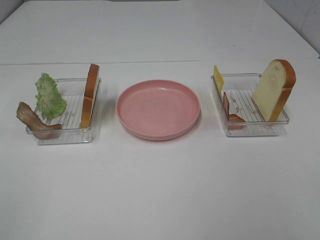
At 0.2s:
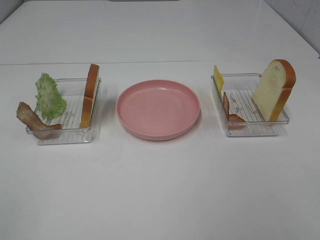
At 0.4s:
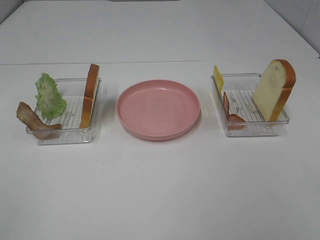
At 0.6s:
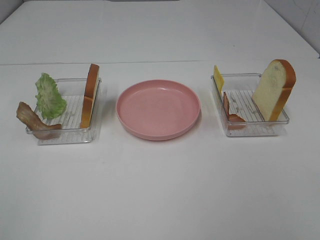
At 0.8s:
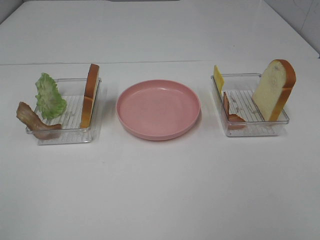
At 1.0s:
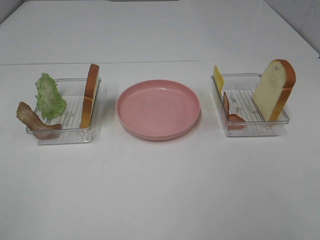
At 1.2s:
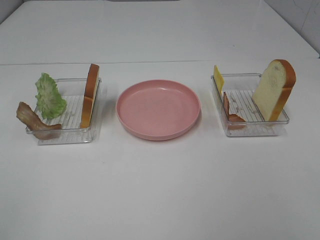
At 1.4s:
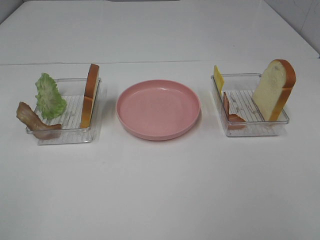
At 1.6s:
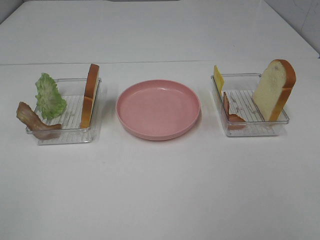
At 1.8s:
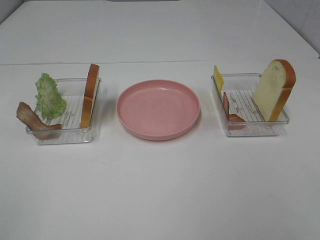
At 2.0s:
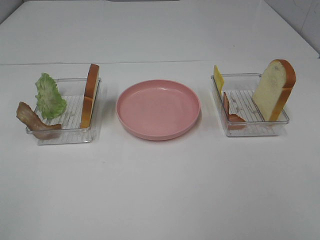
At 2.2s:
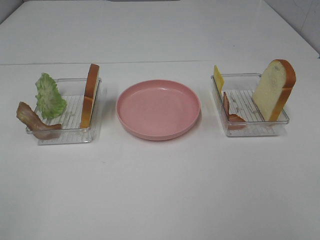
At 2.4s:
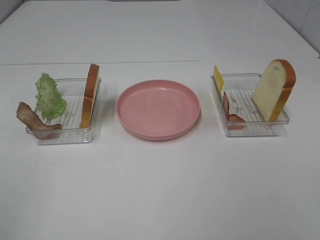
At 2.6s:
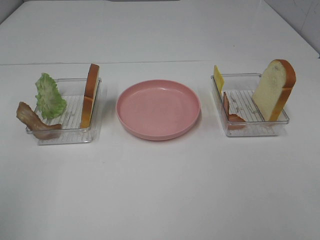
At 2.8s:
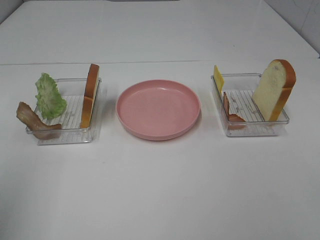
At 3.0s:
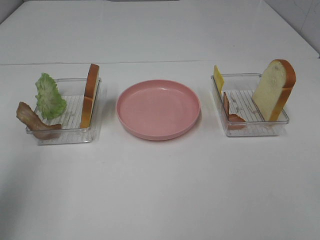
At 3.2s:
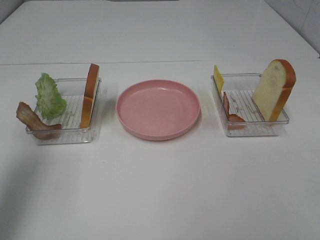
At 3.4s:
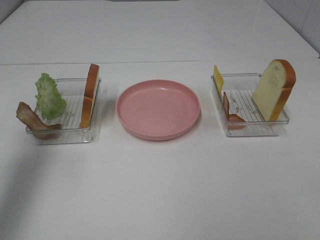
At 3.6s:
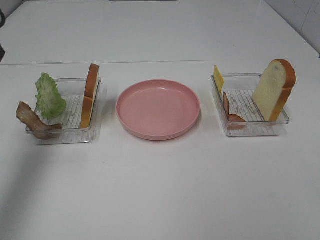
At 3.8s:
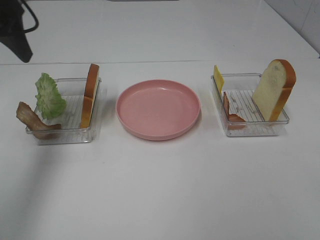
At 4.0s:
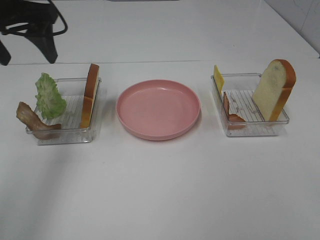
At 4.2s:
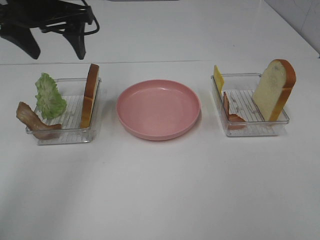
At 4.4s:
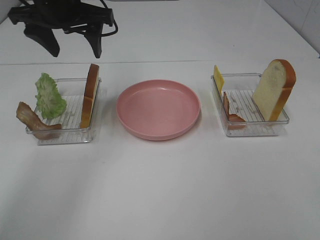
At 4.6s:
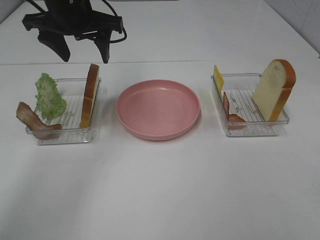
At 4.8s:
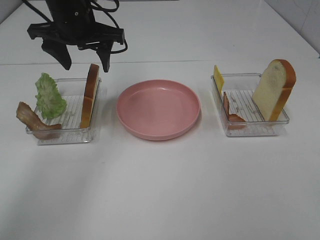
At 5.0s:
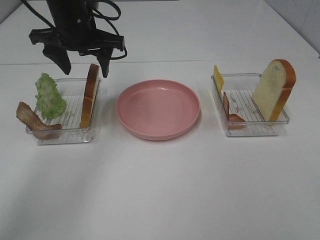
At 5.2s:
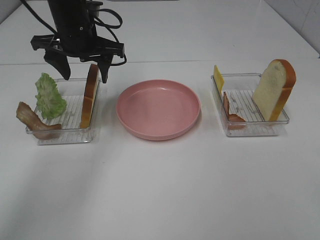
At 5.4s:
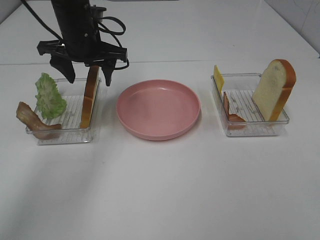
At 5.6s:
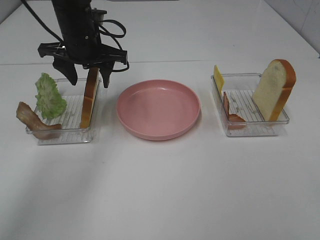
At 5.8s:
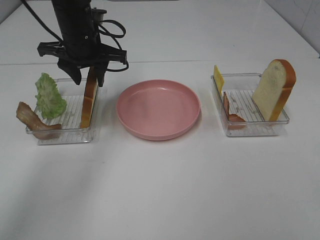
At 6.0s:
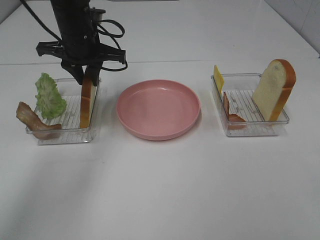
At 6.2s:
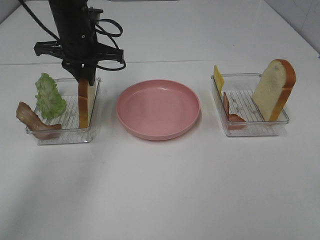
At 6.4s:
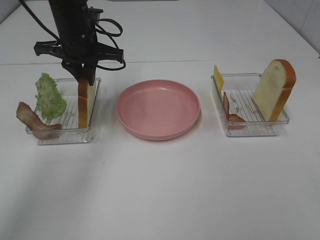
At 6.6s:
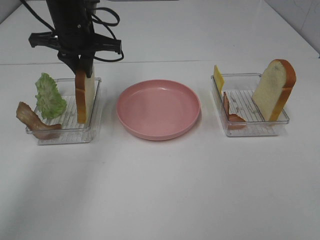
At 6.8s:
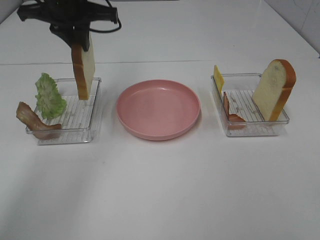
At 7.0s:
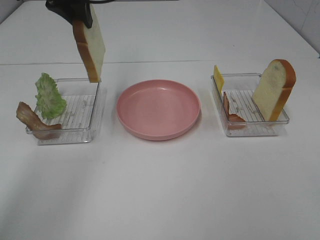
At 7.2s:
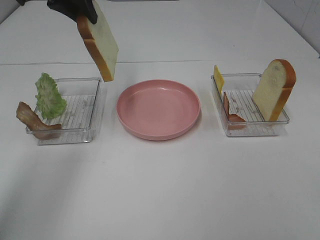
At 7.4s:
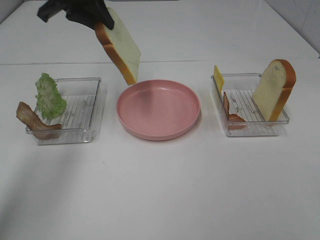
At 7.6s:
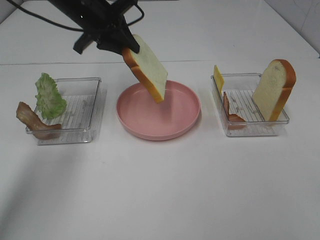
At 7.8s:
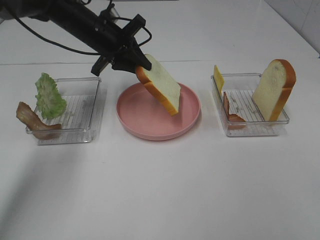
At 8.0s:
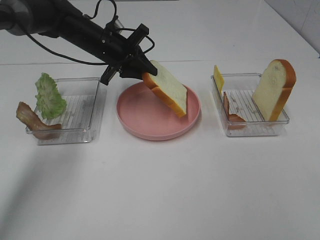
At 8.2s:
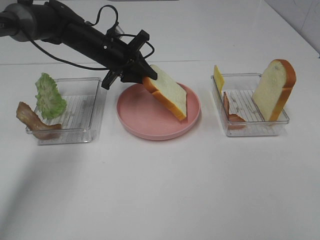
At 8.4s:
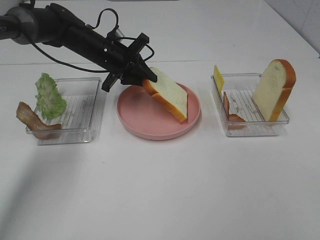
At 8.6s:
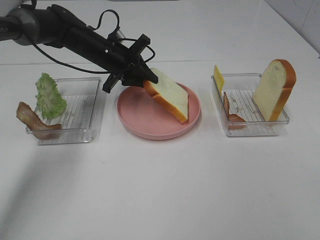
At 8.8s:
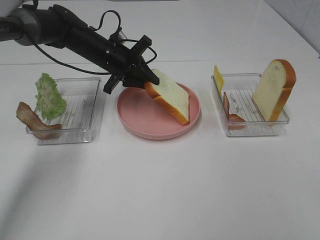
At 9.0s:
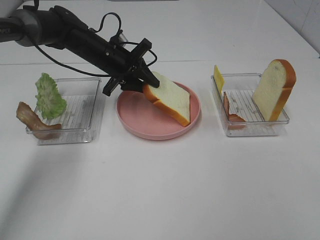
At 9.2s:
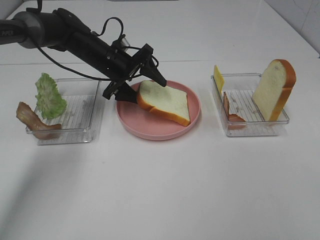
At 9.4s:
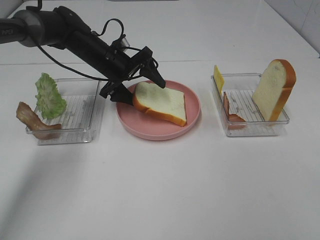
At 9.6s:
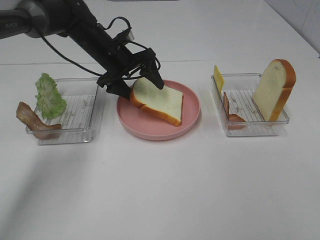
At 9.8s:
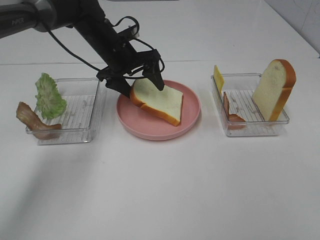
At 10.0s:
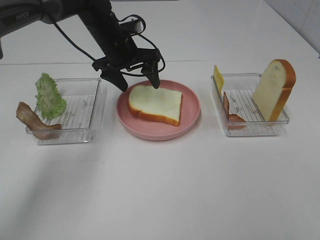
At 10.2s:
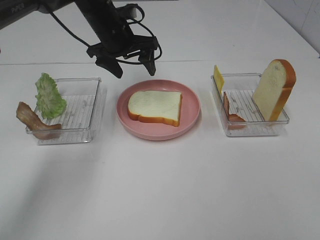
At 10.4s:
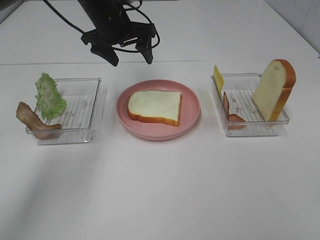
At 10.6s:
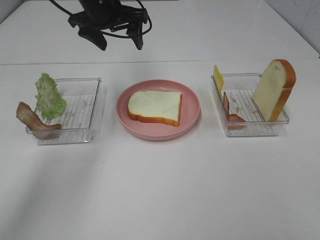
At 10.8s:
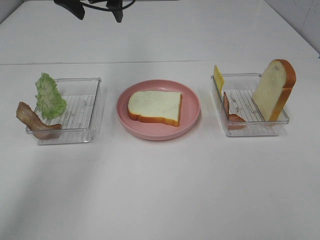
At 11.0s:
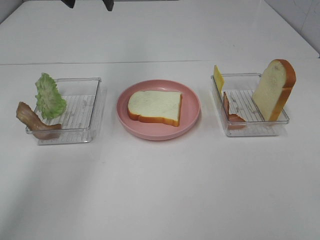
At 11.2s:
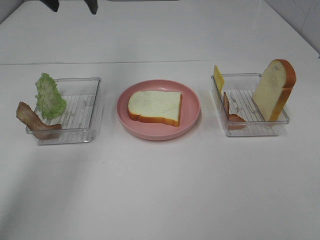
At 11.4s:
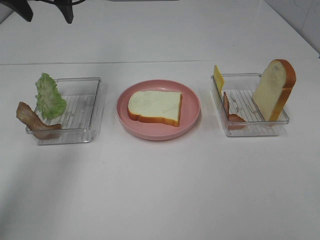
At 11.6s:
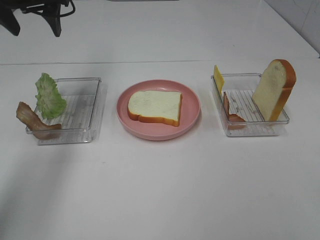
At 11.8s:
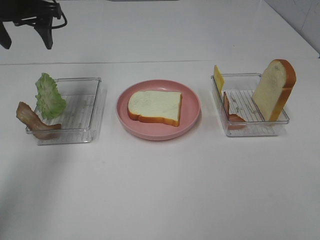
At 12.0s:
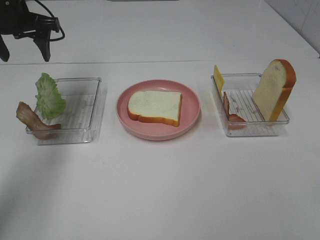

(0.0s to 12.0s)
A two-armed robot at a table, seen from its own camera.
Task of the whole recording: Make sandwiches.
Step, 0.0s - 6.4s: Left hand:grab the bread slice.
Step, 6.6s - 10.4s: Left hand:place the bread slice on the plate.
0.0s - 1.6s: Both grippers stay about where they are.
1.6s - 3.0s: The left gripper is displaced forward by approximately 15 cm.
3.0s - 4.4s: The left gripper travels forward and to the right by about 30 cm.
4.4s - 6.0s: The left gripper shifts some 10 cm downward, and closes up.
6.0s - 7.6s: The left gripper moves about 10 cm upward and comes back.
7.6s - 9.0s: The left gripper is displaced downward by approximately 10 cm.
9.0s - 10.4s: The left gripper travels upward by approximately 10 cm, and opens its fingers.
10.4s - 12.0s: The left gripper moves to the left, roughly 15 cm.

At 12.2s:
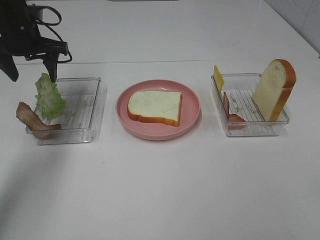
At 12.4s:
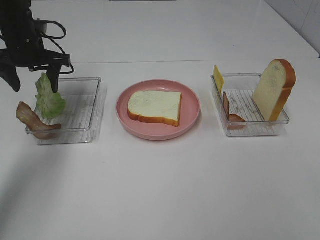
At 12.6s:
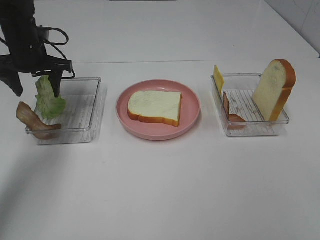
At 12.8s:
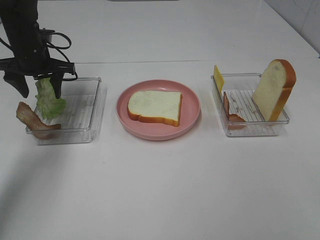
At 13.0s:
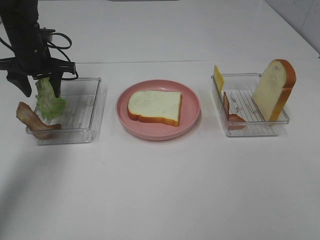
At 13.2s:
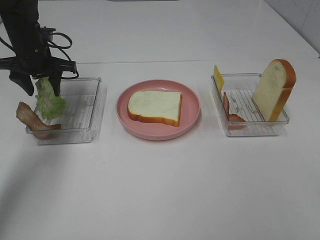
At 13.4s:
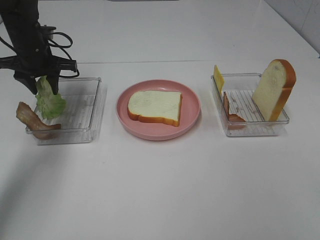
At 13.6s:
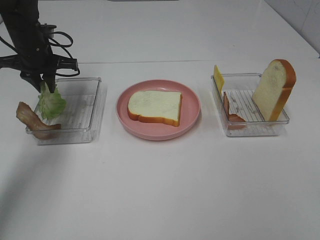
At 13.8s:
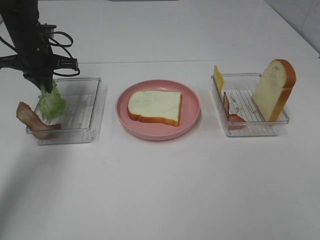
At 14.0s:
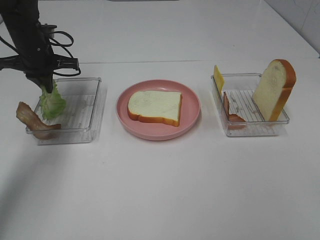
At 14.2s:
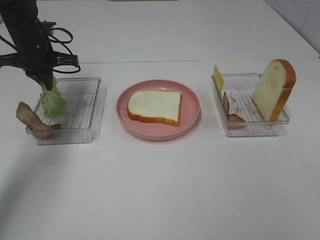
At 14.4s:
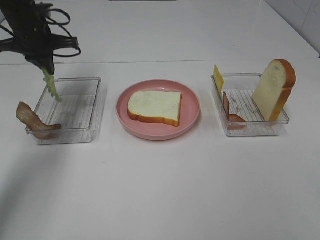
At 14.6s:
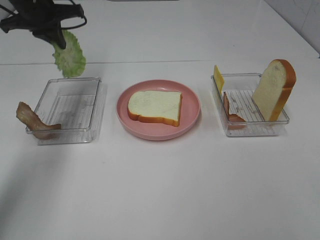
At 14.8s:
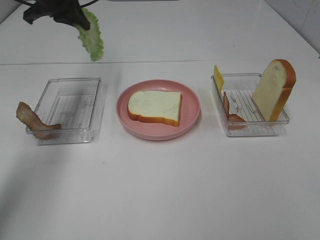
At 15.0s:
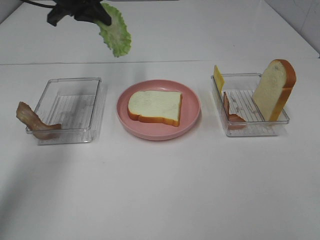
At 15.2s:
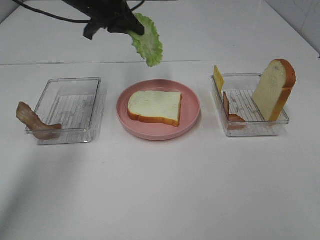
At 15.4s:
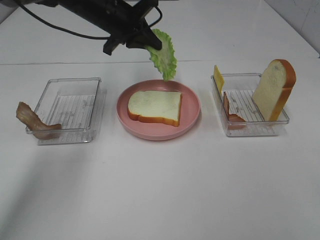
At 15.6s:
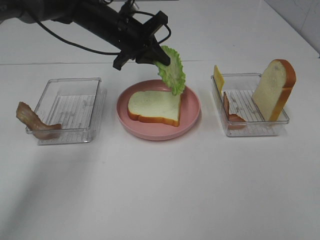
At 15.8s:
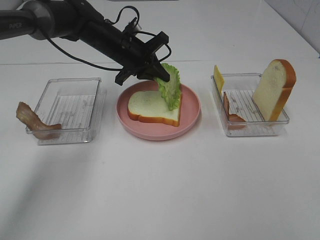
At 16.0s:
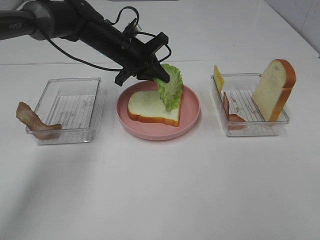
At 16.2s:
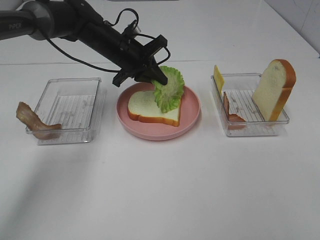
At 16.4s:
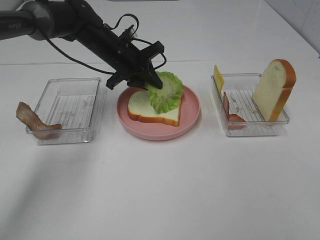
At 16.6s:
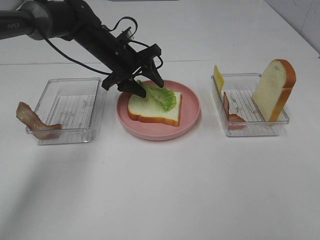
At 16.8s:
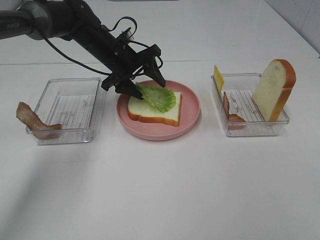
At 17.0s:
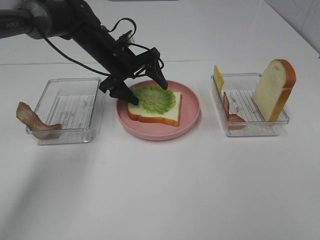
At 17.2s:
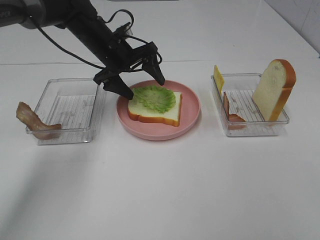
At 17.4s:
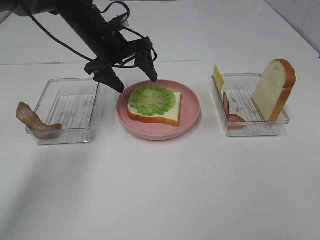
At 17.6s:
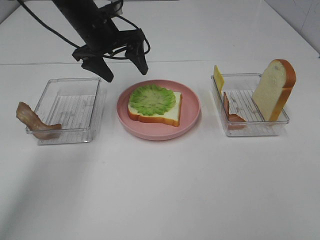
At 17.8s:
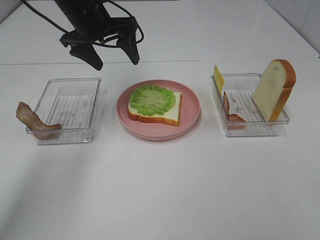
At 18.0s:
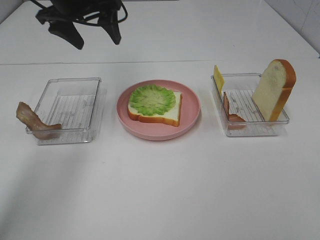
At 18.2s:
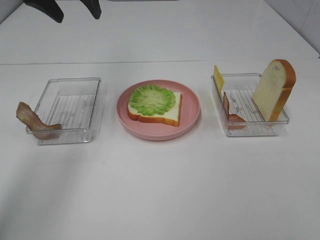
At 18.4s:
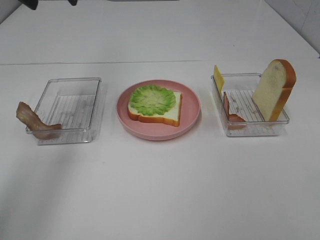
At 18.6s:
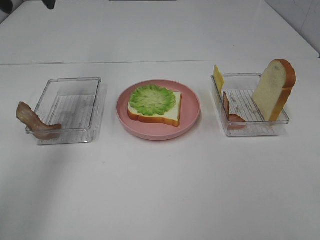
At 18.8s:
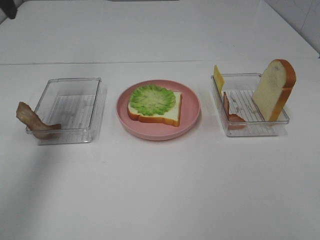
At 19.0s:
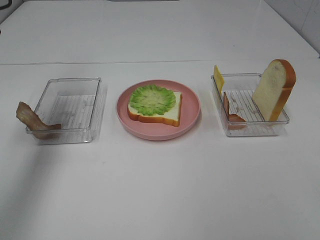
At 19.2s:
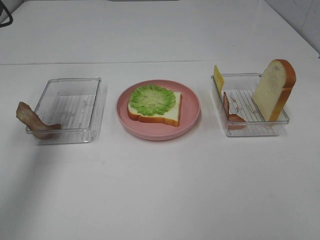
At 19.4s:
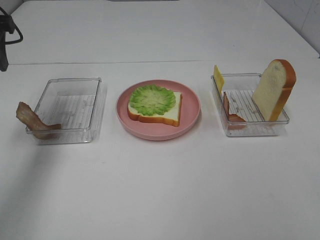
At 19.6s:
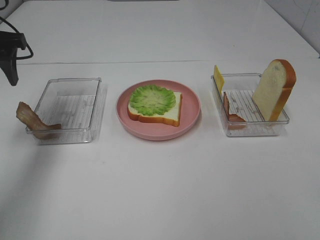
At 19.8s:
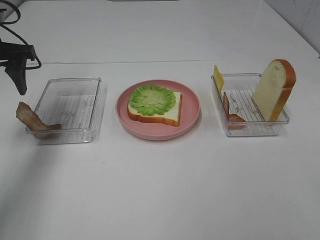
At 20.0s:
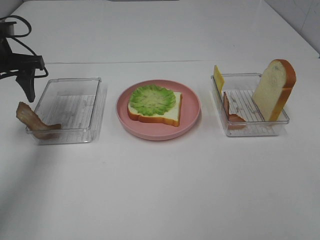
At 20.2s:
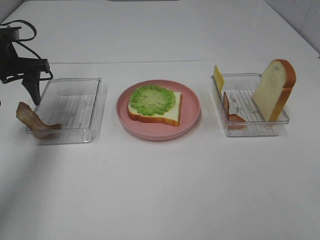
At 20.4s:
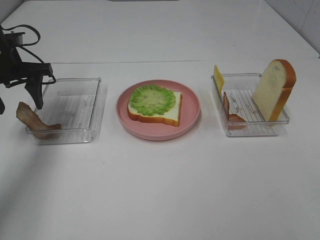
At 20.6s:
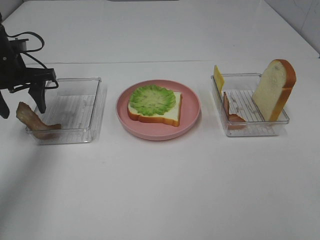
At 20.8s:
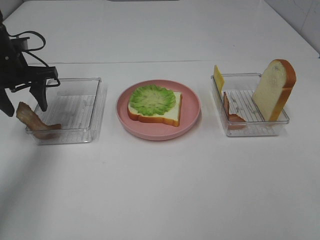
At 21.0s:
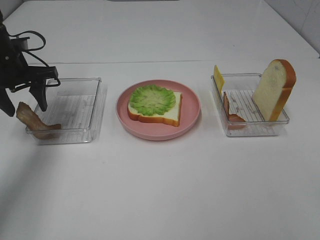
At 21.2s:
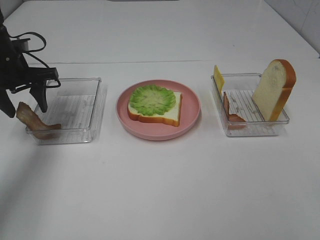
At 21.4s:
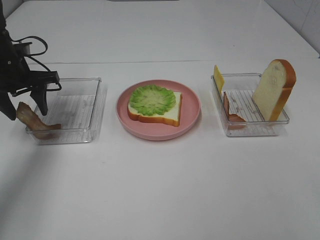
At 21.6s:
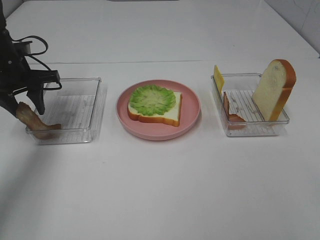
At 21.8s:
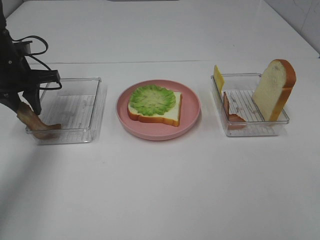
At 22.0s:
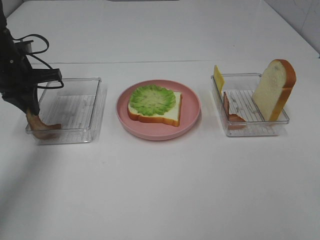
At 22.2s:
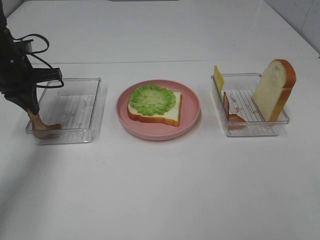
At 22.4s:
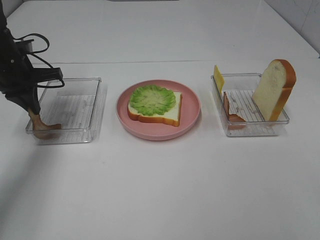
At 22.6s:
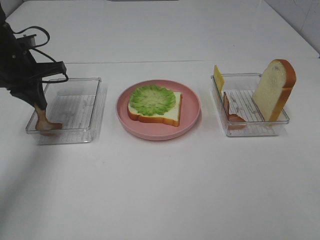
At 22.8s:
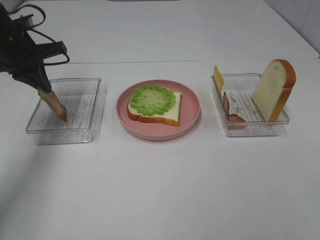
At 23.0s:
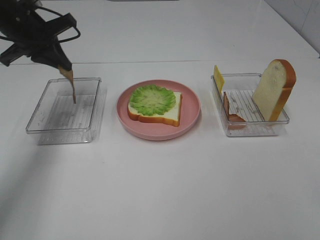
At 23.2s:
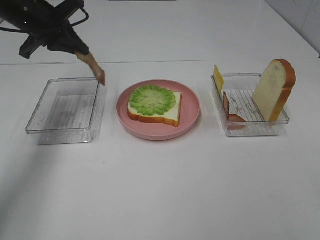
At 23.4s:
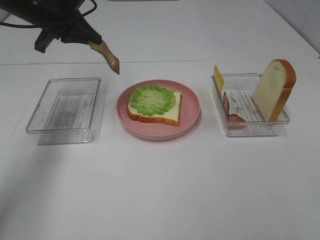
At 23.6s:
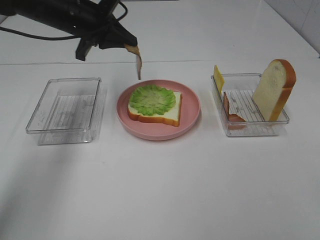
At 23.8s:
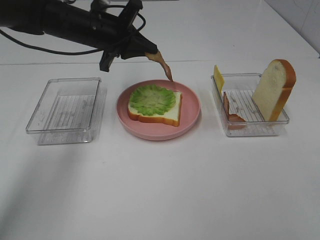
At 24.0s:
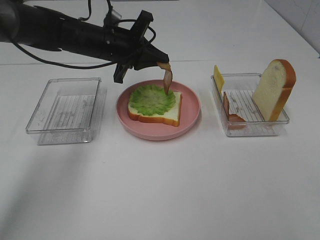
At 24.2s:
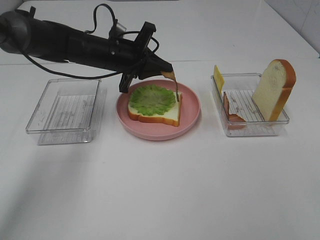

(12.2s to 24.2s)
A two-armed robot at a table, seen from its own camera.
Task of the whole recording: Make sandwiches.
Step, 12.2s - 14.0s: Left hand:grab the lettuce slice.
Step, 14.2s - 17.4s: Left hand:place the lettuce slice on the bread slice.
Step, 17.6s - 22.2s: Left hand:grab the bacon.
12.2s - 13.8s: The left gripper changes place by some 5 cm, and closes up.
13.8s - 15.2s: The left gripper is displaced to the right and upward by about 15 cm.
15.2s - 16.6s: The left gripper moves downward, approximately 10 cm, and opens.
16.6s - 18.2s: The left gripper shifts about 20 cm upward and to the left.
18.2s - 19.8s: The left gripper shifts roughly 15 cm downward and to the left.
19.8s - 21.2s: The left gripper is displaced downward by approximately 5 cm.
21.2s - 22.6s: The left gripper closes its fingers.
22.6s - 24.2s: The left gripper is displaced to the right by approximately 15 cm.
